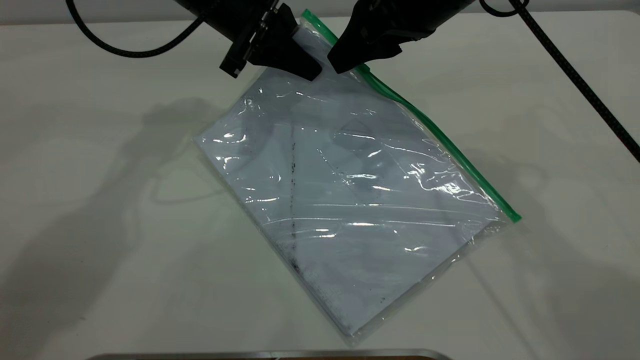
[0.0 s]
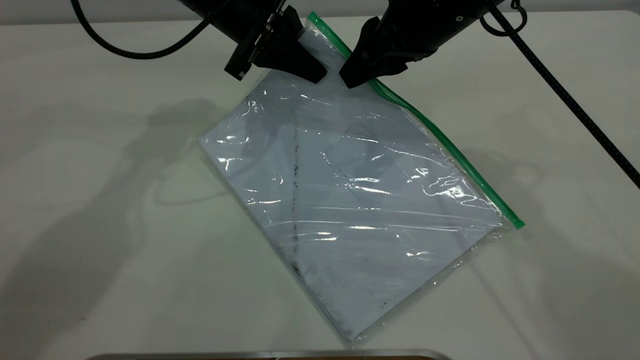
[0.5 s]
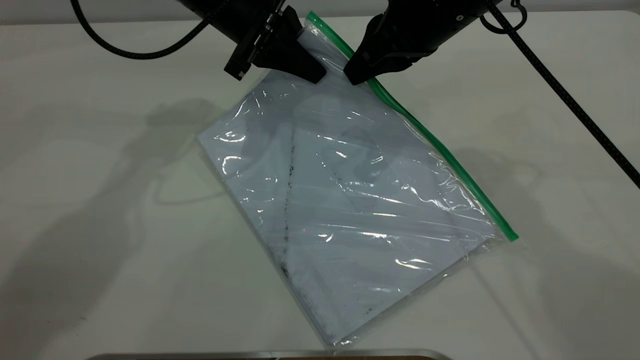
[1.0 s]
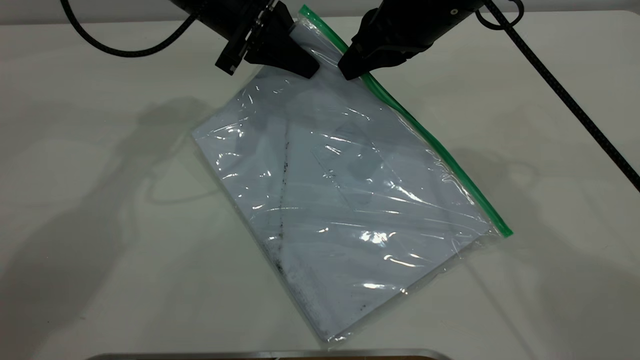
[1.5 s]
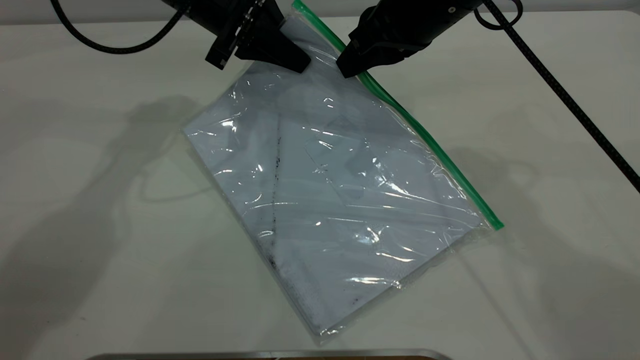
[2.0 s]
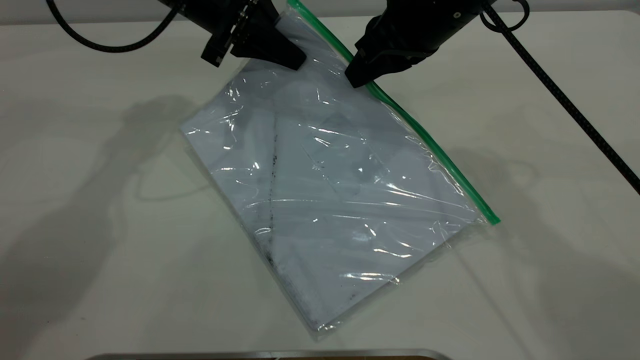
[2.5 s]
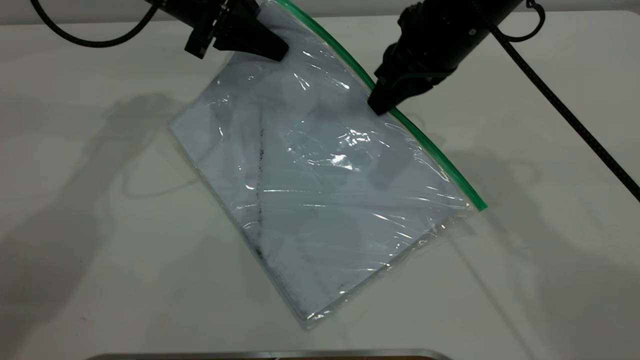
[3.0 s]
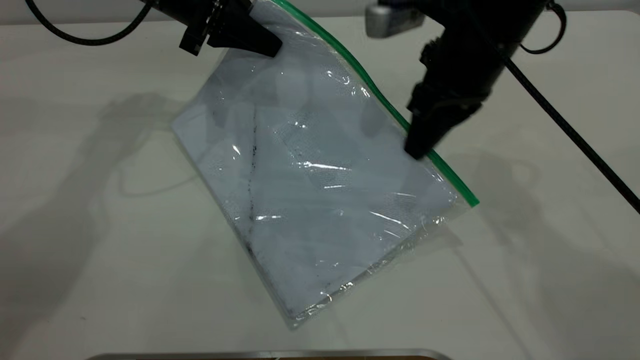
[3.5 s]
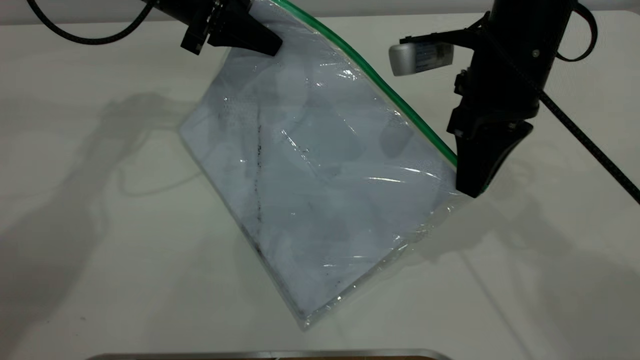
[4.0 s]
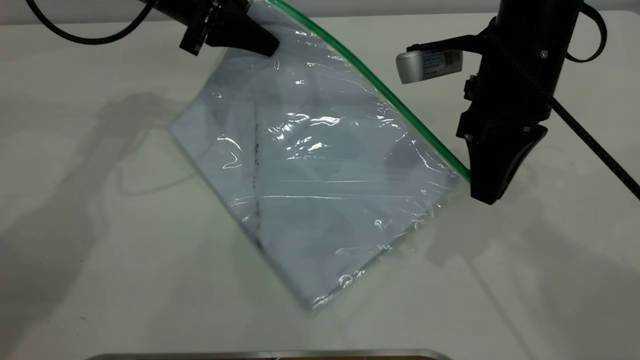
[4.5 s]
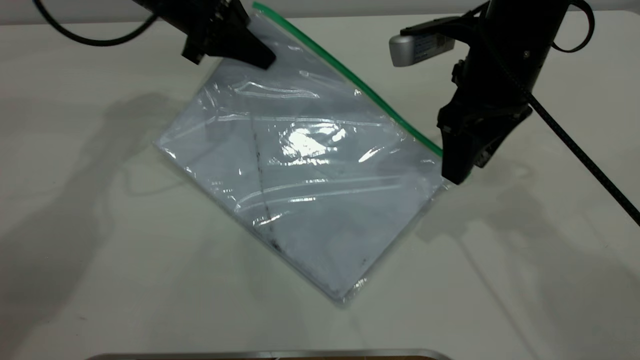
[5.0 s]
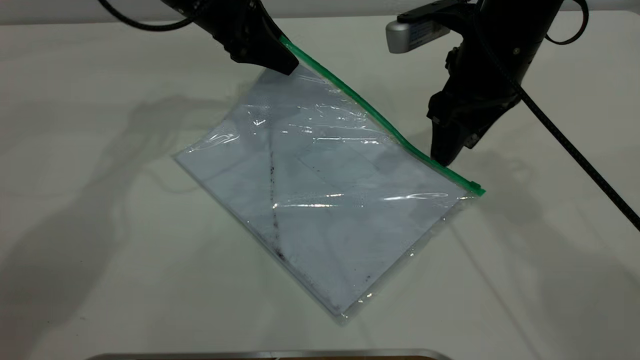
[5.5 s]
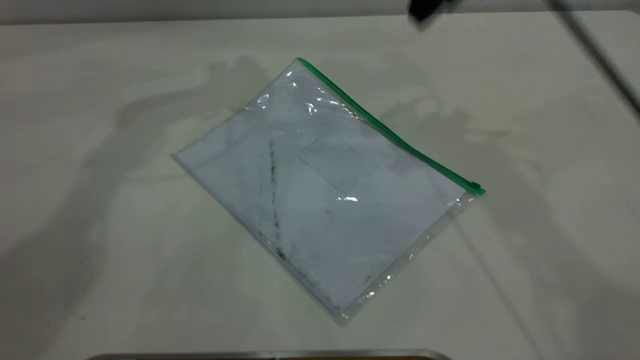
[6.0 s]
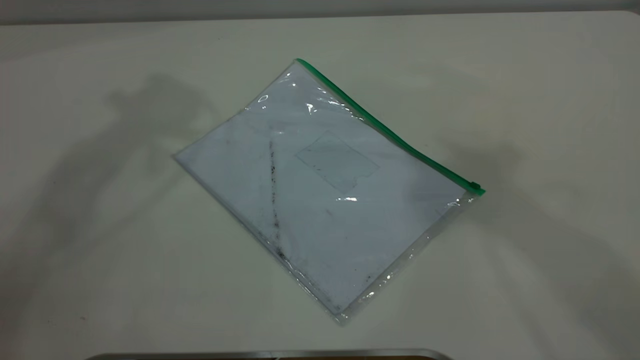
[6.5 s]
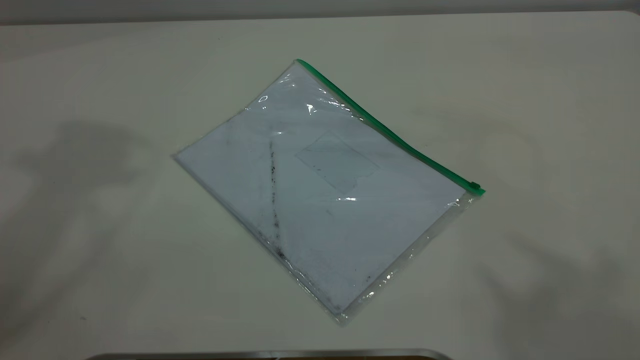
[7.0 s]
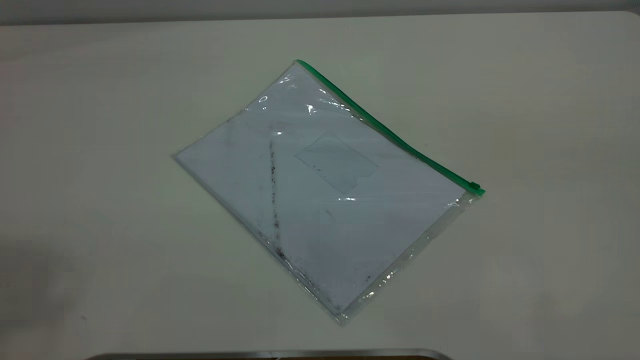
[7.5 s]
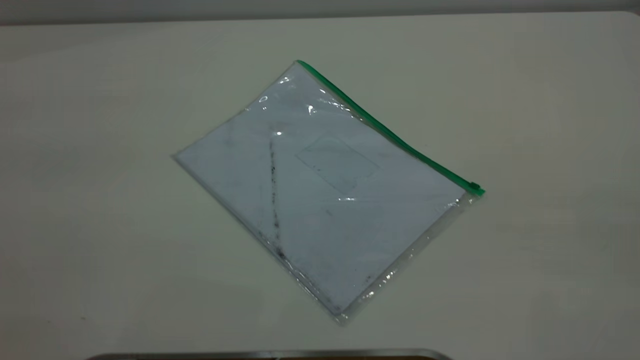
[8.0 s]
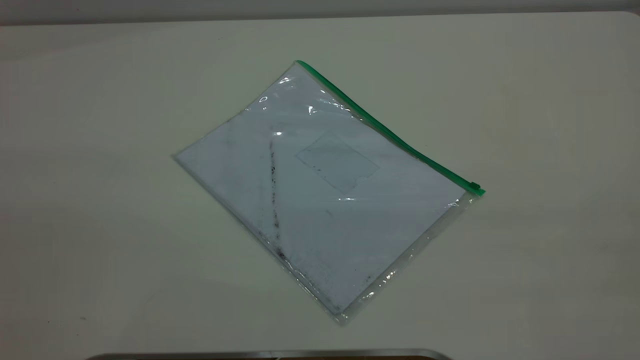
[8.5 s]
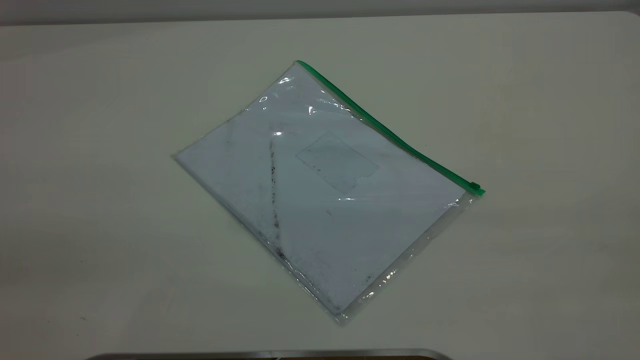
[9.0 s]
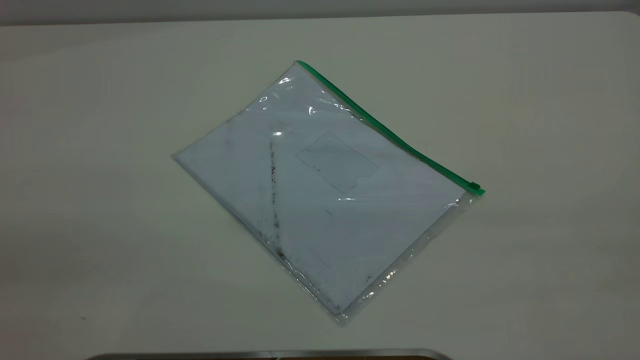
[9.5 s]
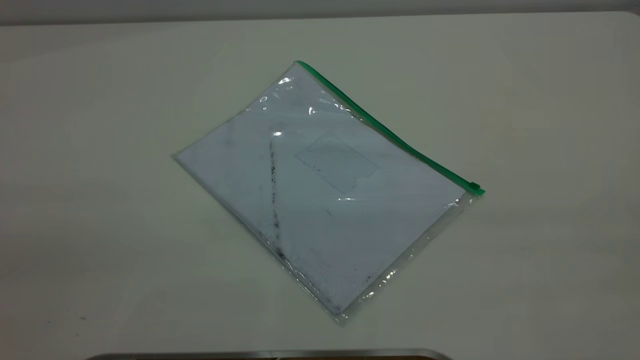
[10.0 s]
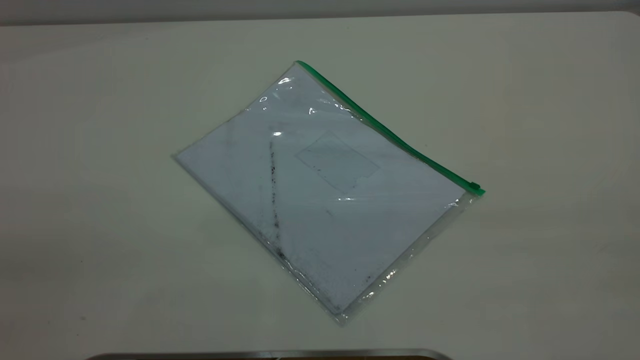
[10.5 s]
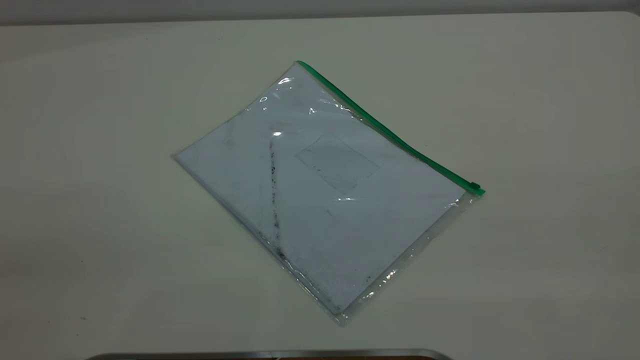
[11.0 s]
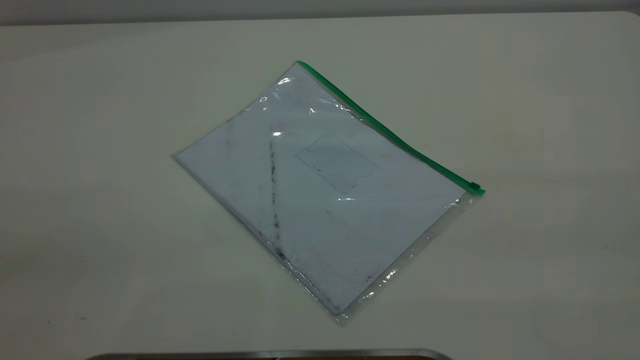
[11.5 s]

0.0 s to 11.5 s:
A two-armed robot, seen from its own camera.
Step, 0.0 to 4.5 s: Pulling up the zipper on the transparent plastic bag with the right gripper to close it.
Step, 5.0 to 5.5 s: Place the transparent plastic bag.
0.0 to 2.0 s: The right gripper closes up.
2.0 to 4.0 s: The right gripper goes roughly 5 cm backward.
4.0 to 6.0 s: The right gripper travels upward and forward by roughly 15 cm, and opens its fingers. The left gripper is displaced upward by approximately 10 cm, and opens its fingers.
6.0 to 7.5 s: The right gripper travels backward and upward by some 40 cm.

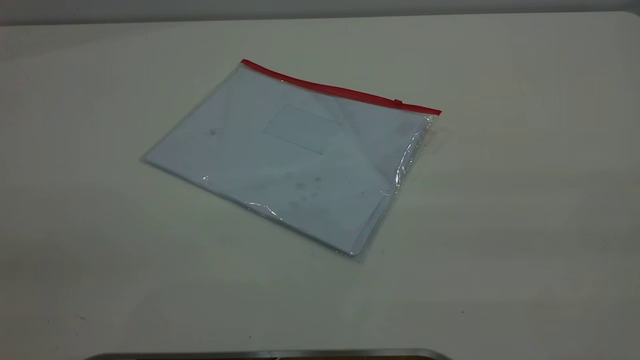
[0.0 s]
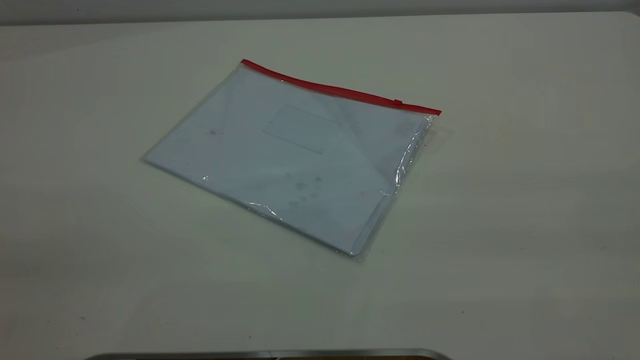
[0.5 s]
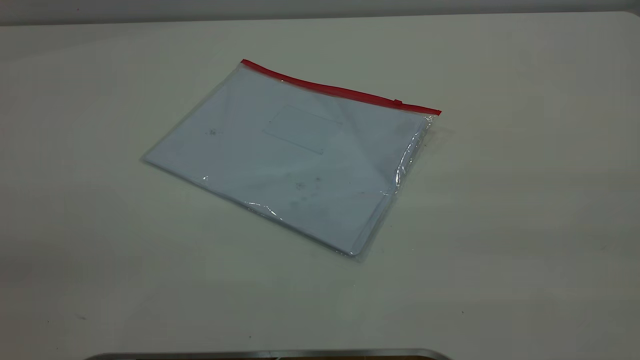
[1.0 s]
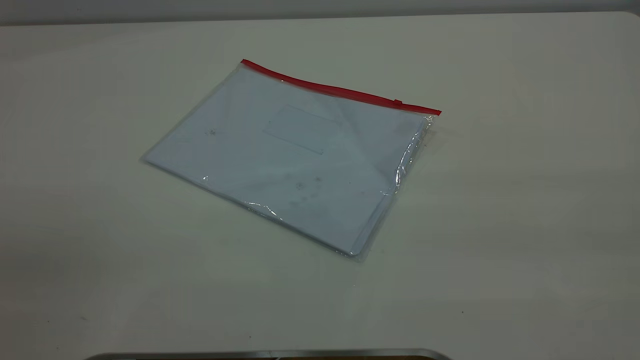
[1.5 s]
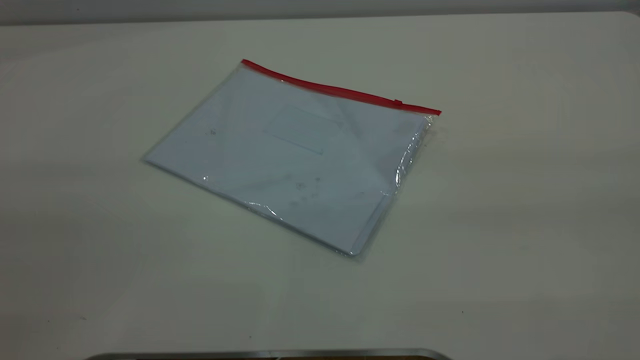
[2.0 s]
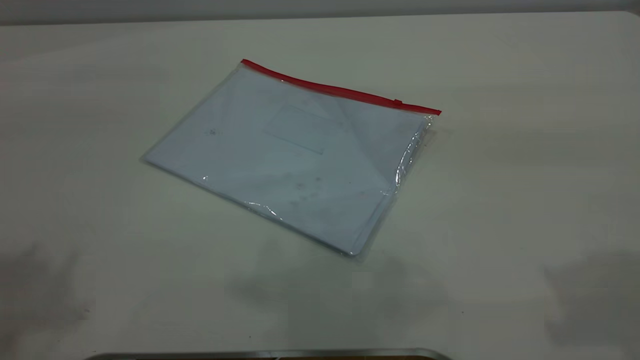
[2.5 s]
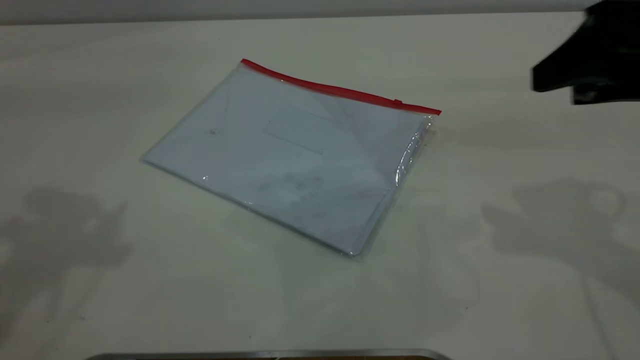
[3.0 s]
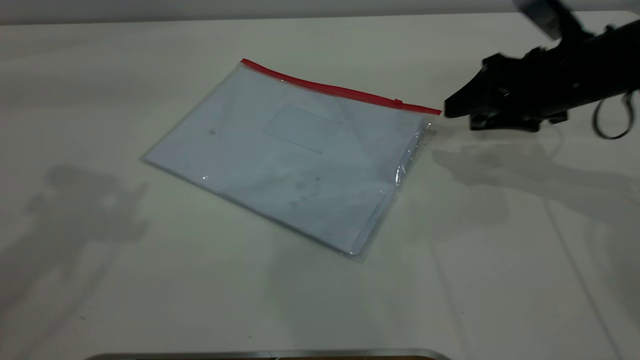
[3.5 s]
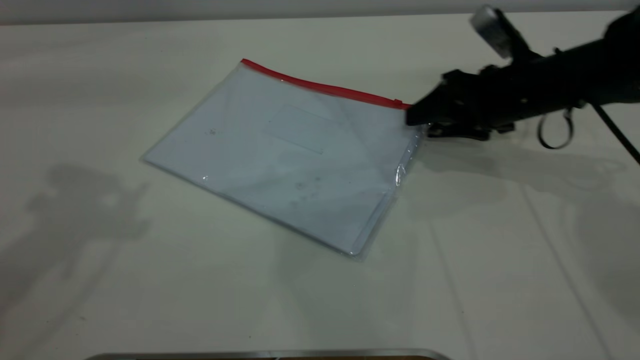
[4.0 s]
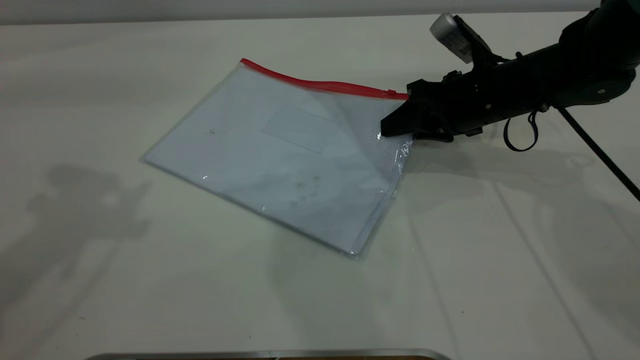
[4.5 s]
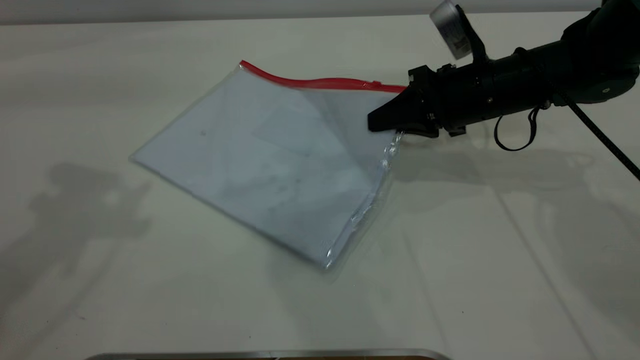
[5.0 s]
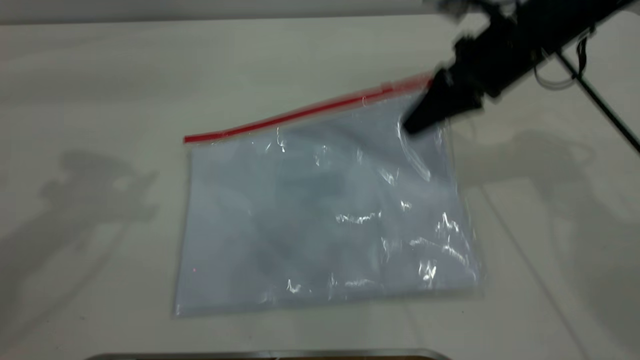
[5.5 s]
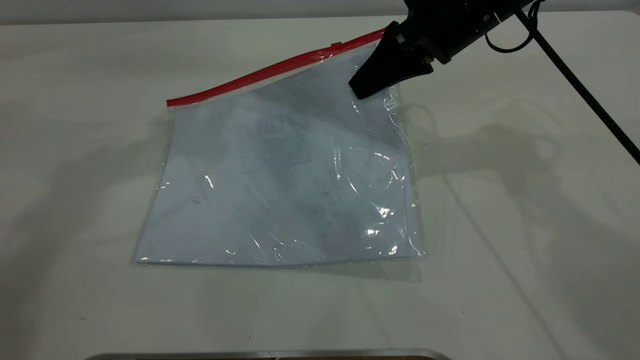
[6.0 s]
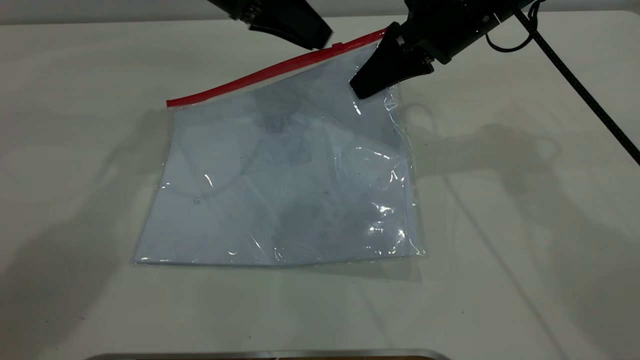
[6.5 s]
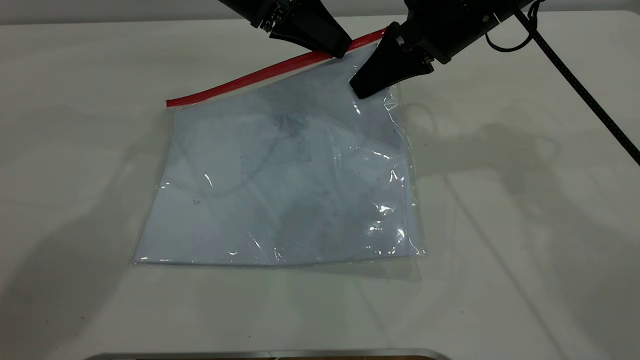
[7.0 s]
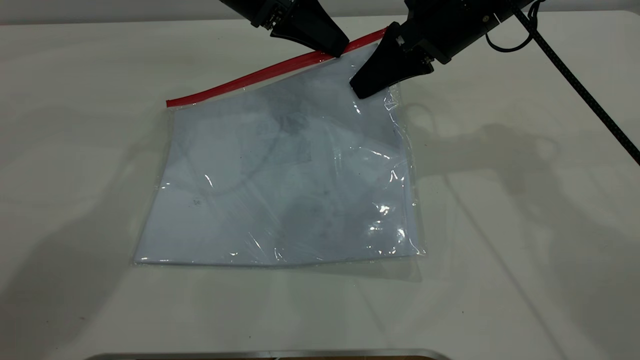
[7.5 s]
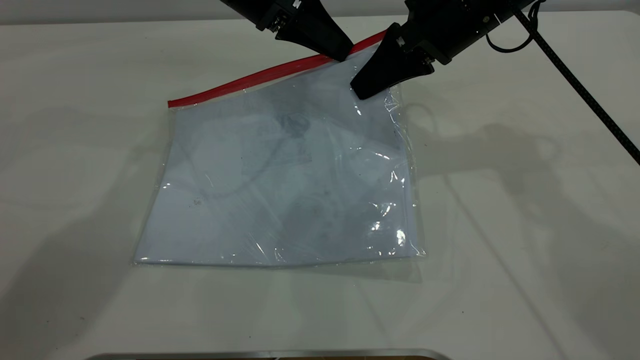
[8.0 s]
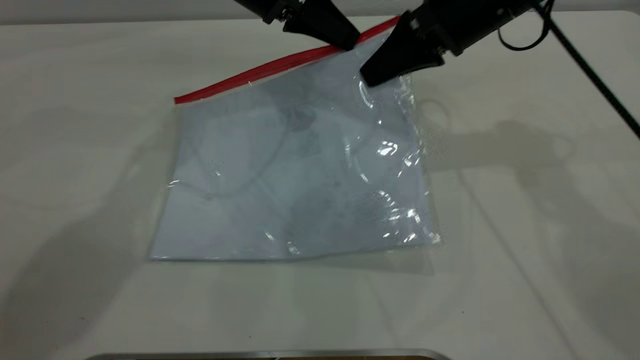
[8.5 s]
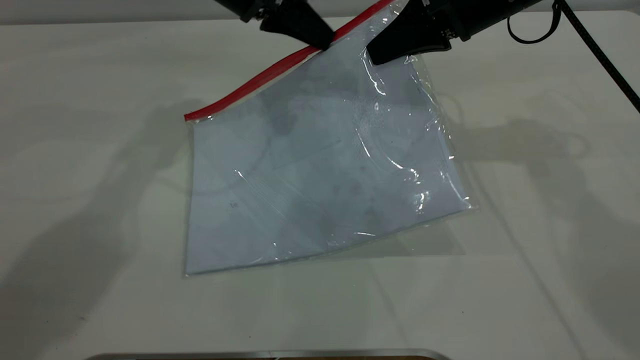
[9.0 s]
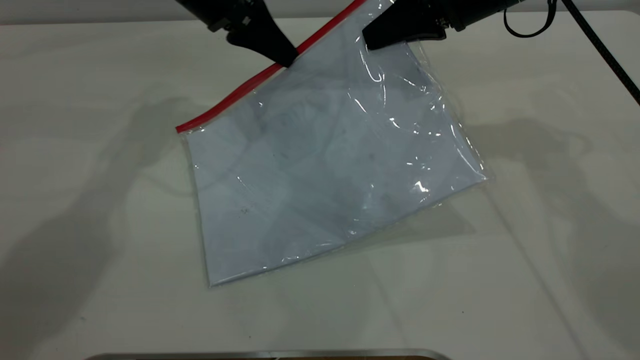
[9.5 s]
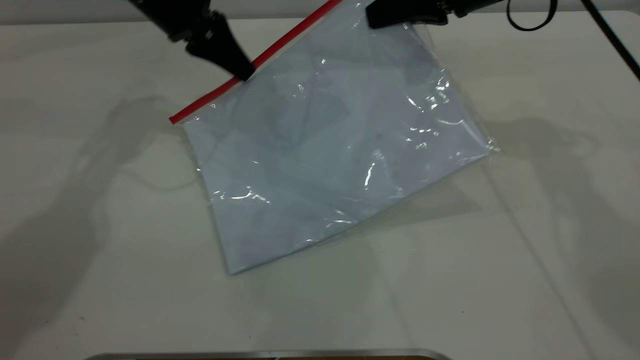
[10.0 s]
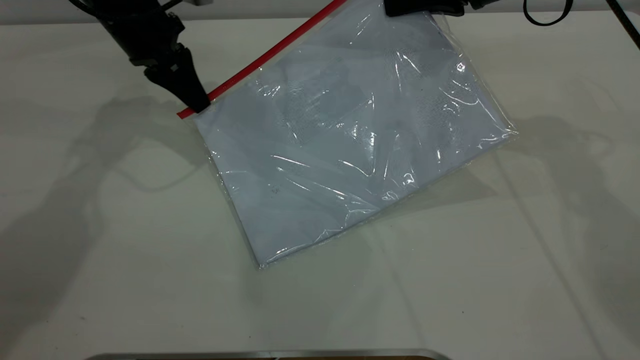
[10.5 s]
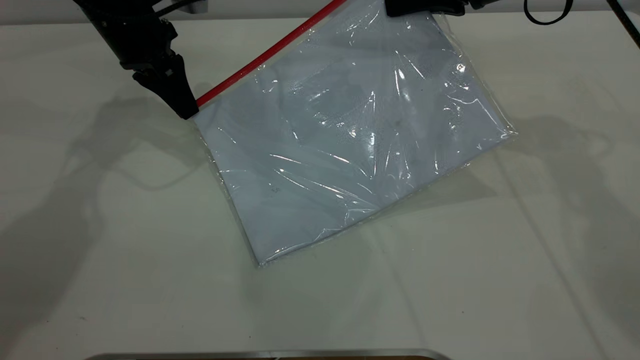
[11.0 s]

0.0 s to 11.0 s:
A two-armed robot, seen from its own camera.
Step, 0.0 to 6.0 s: Pick up the transparent plastic bag with the right gripper.
2.0 to 3.5 s: The right gripper travels forward and downward by approximately 40 cm.
3.5 to 5.5 s: The right gripper moves to the left and upward, some 10 cm, and closes up.
5.5 to 7.5 s: The left gripper goes roughly 25 cm to the right, forward and downward, and closes its fingers.
7.5 to 9.0 s: The grippers move only a little.
9.0 to 11.0 s: The left gripper shifts some 10 cm to the left.
